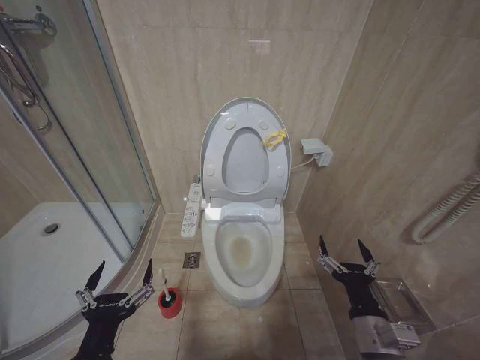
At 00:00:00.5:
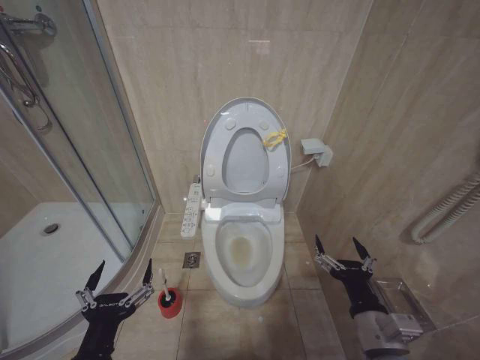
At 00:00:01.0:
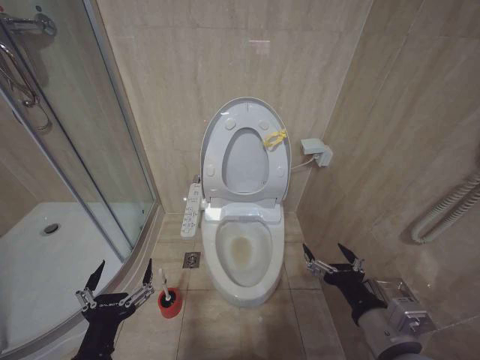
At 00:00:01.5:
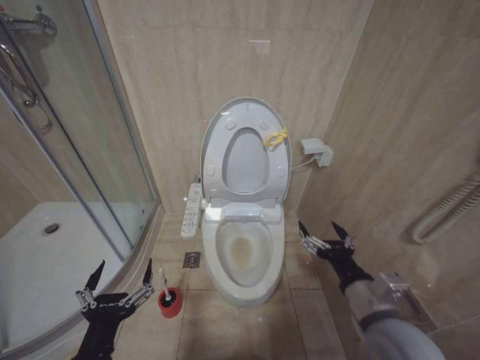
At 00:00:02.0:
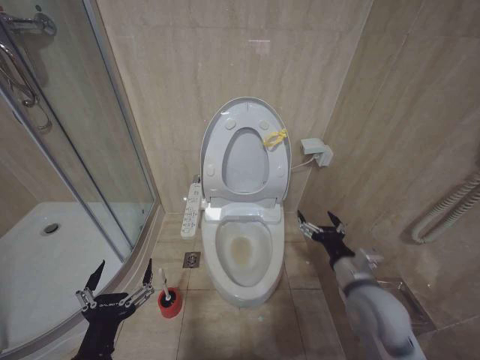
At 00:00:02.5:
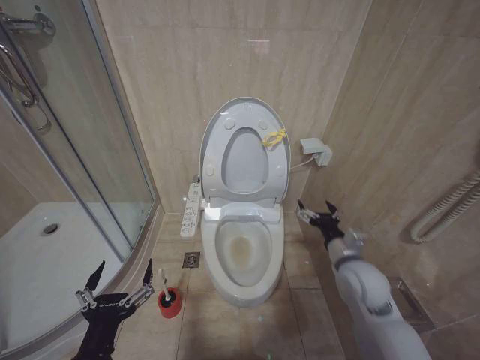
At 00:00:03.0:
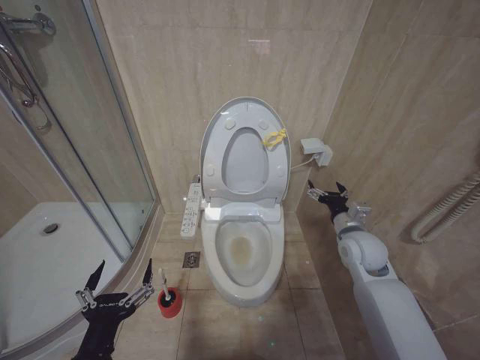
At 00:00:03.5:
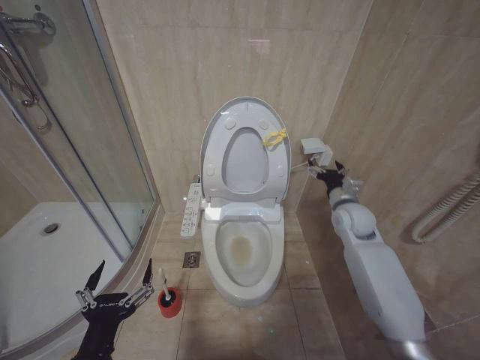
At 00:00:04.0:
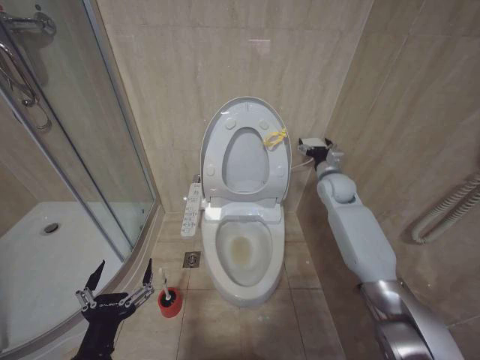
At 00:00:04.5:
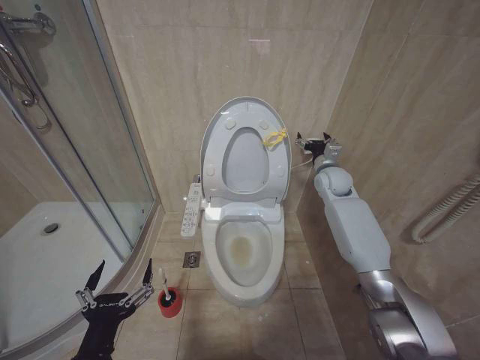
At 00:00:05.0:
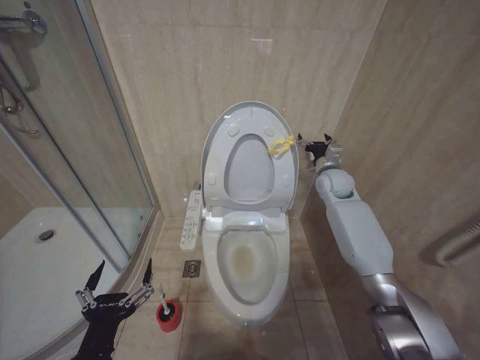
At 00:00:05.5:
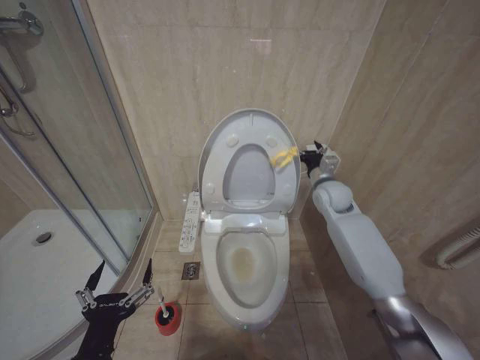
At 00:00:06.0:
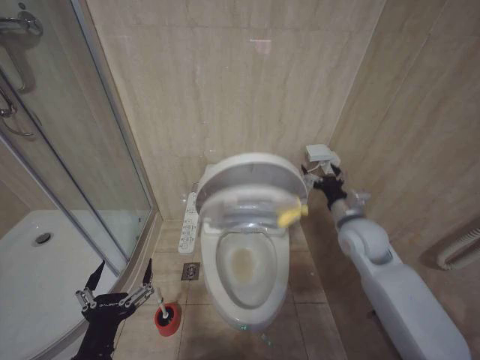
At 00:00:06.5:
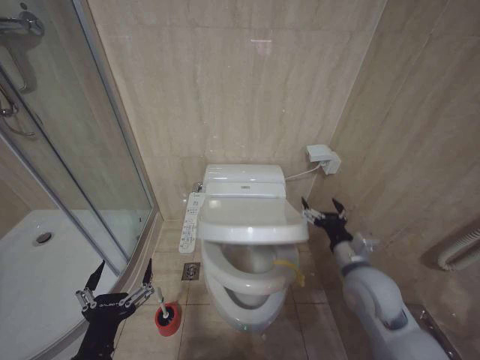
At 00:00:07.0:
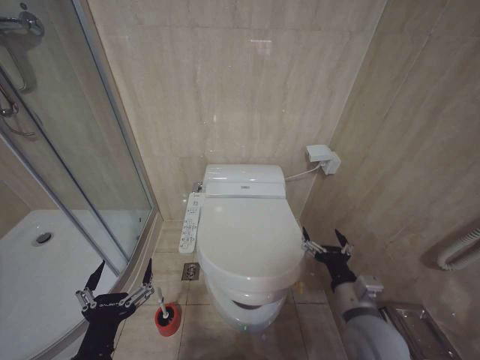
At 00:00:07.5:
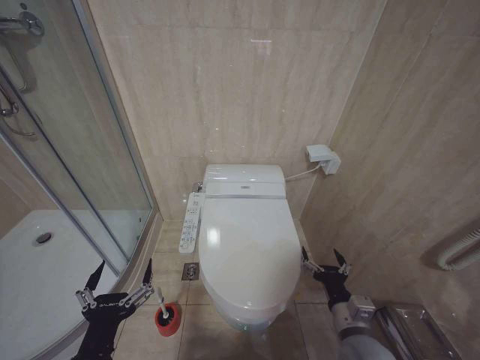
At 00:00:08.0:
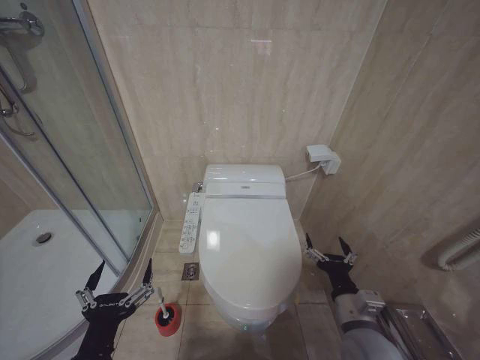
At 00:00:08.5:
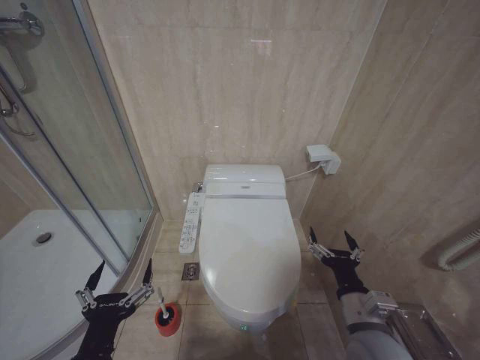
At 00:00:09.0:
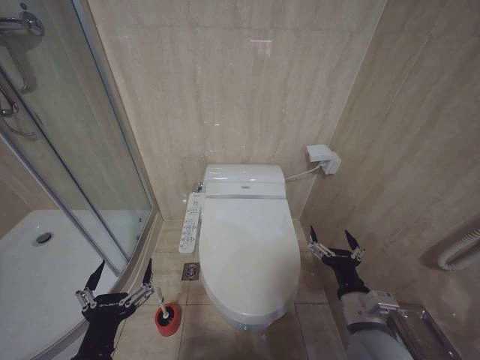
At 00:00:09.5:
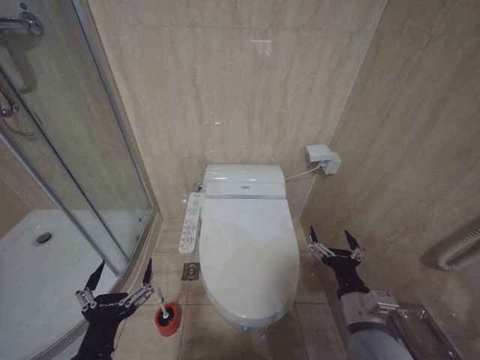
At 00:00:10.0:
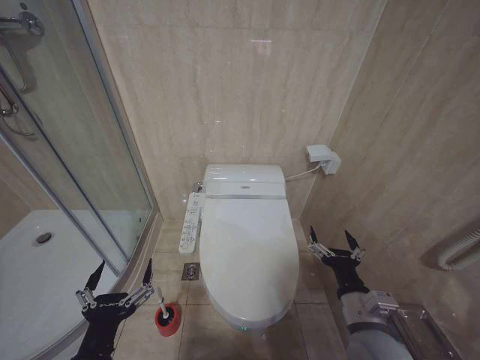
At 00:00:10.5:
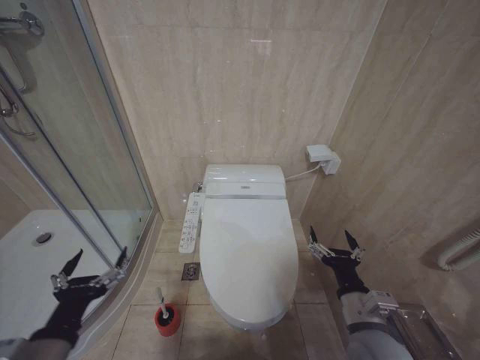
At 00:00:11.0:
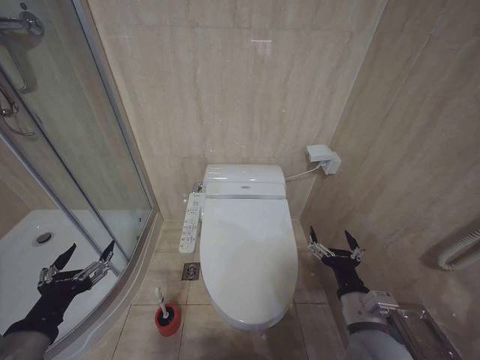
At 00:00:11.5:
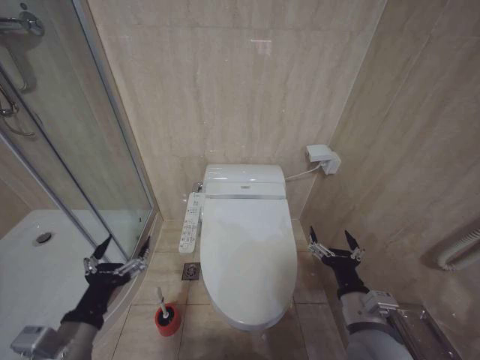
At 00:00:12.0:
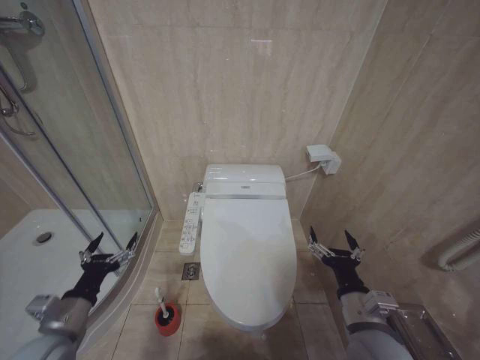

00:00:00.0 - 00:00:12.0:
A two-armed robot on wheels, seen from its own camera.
Task of the whole recording: Open the toilet lid, clean the toilet bowl with a toilet brush, close the toilet lid, and flush.
00:00:00.0 - 00:00:02.0: The right gripper goes about 10 cm forward and upward.
00:00:02.0 - 00:00:04.0: The right gripper goes approximately 30 cm forward.
00:00:04.0 - 00:00:06.0: The right gripper travels backward by some 15 cm.
00:00:06.0 - 00:00:08.0: The right gripper is displaced backward and downward by roughly 25 cm.
00:00:08.0 - 00:00:10.0: The grippers stay close to where they were, moving slightly.
00:00:10.0 - 00:00:12.0: The left gripper goes left and right, some 10 cm each way, reversing 2 times.

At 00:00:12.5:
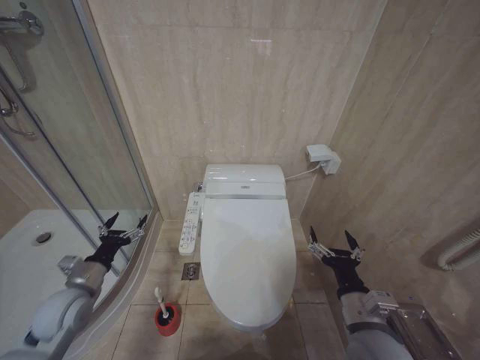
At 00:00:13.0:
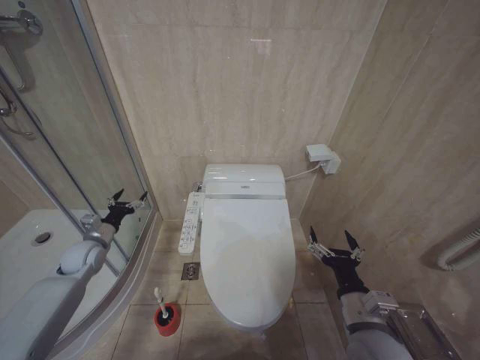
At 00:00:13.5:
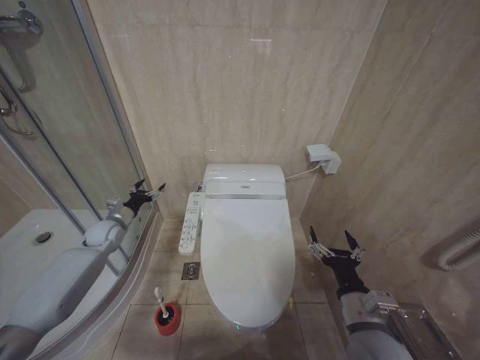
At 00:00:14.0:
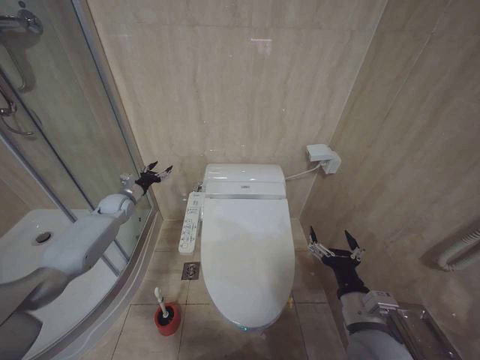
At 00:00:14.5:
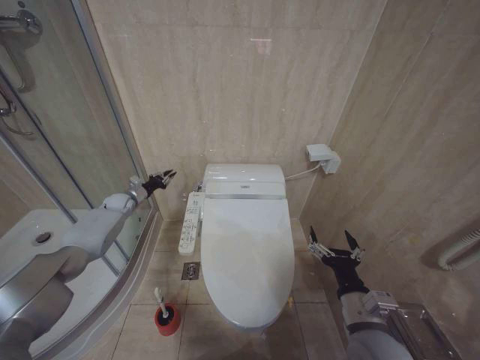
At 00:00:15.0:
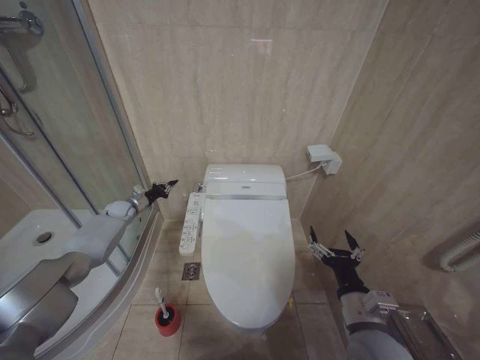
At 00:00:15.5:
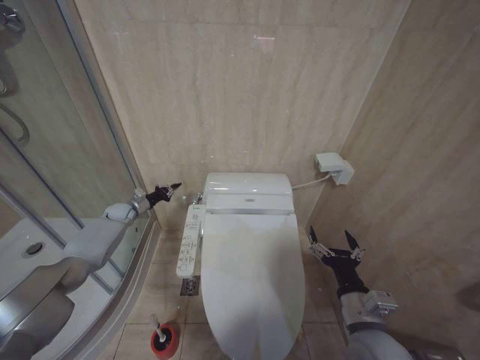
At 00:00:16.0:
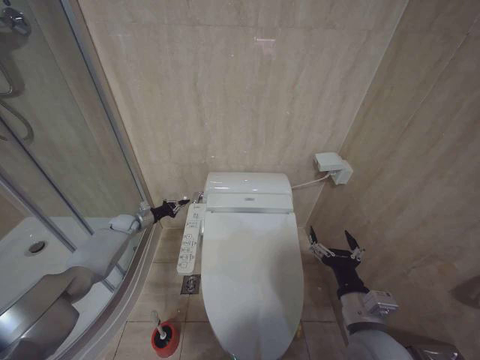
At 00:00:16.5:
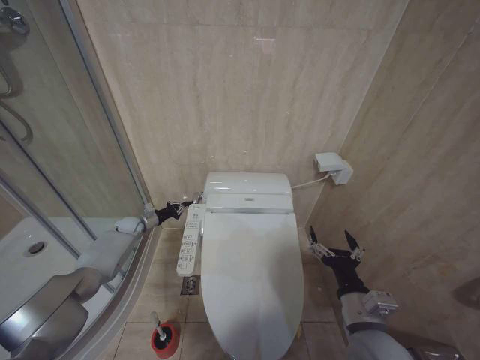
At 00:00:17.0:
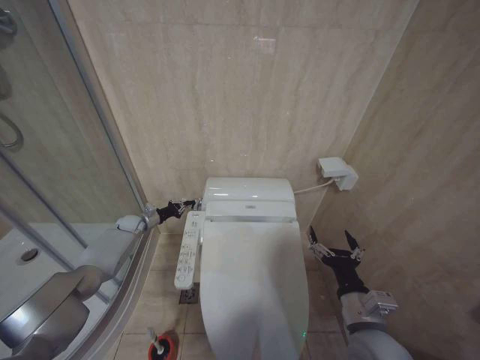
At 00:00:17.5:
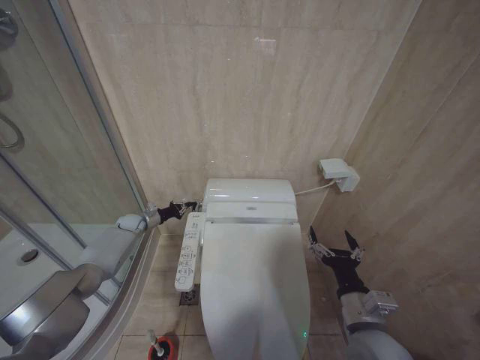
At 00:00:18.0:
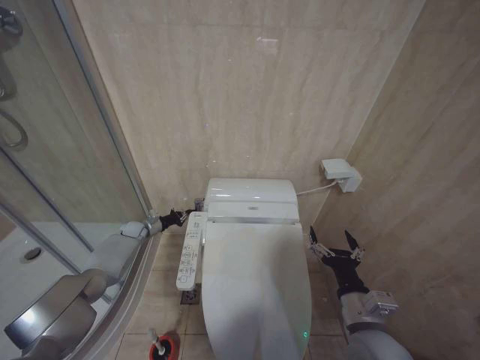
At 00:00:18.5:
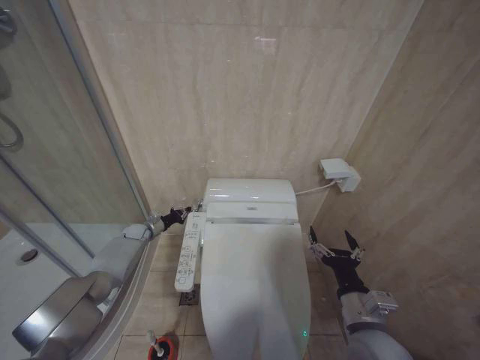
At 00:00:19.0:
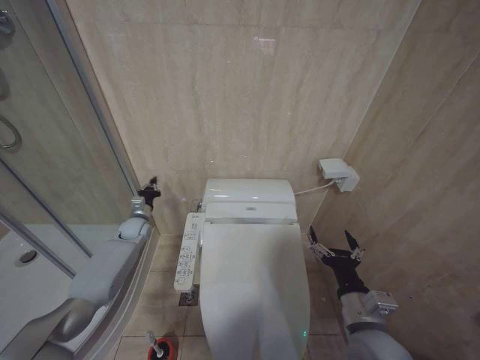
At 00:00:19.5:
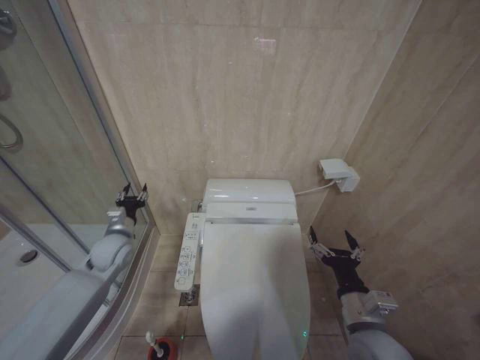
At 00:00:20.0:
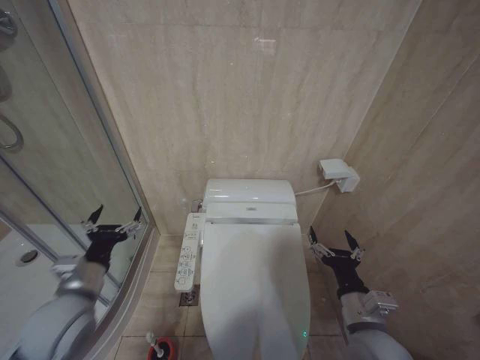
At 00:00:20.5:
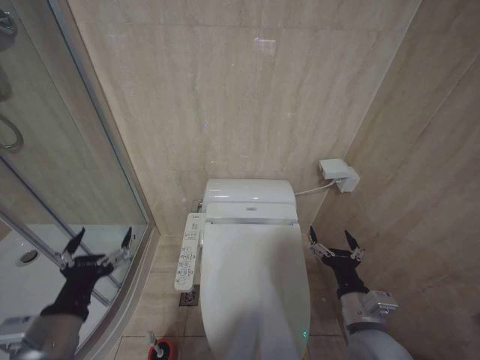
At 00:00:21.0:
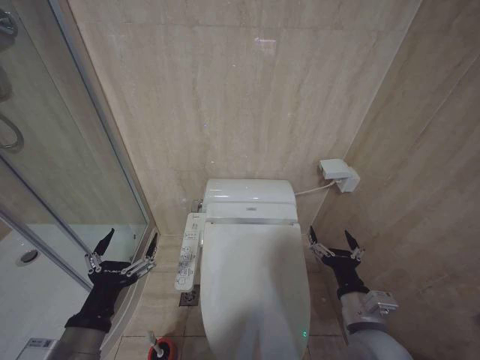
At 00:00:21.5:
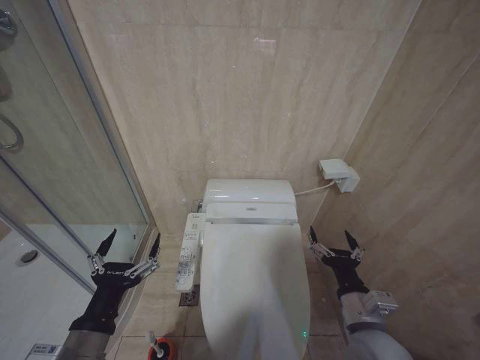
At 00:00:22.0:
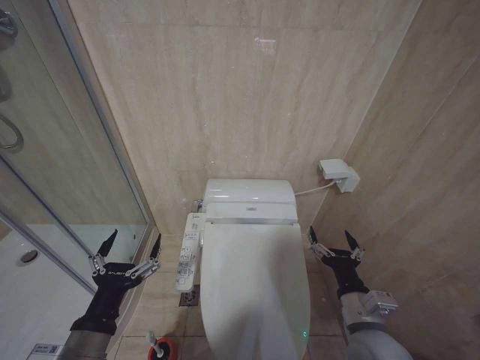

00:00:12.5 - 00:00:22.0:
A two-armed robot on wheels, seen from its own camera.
Task of the whole recording: Open the toilet lid, clean the toilet bowl with a toilet brush, close the toilet lid, and flush.
00:00:12.5 - 00:00:14.5: The left gripper moves forward, some 35 cm, and closes its fingers.
00:00:14.5 - 00:00:16.5: The left gripper travels downward by some 10 cm.
00:00:16.5 - 00:00:18.0: The grippers make only small movements.
00:00:18.0 - 00:00:20.0: The left gripper is displaced backward and upward by approximately 35 cm, and opens up.
00:00:20.0 - 00:00:22.0: The left gripper shifts roughly 15 cm backward.

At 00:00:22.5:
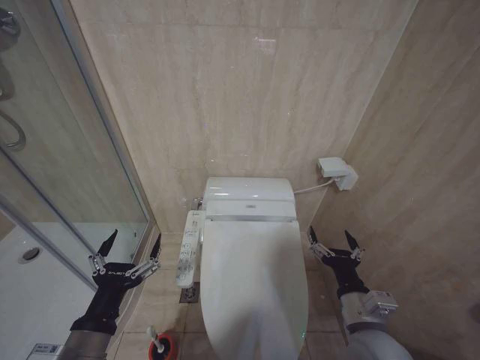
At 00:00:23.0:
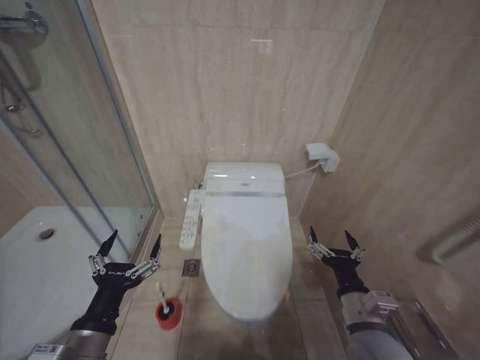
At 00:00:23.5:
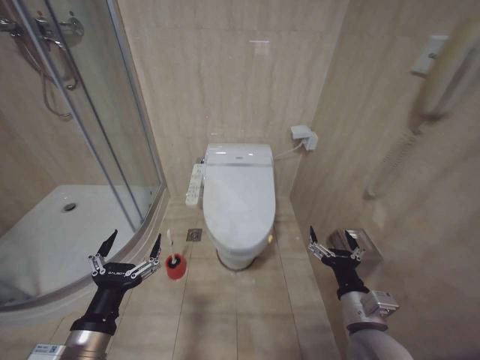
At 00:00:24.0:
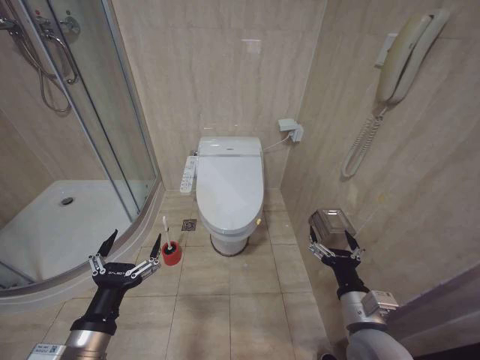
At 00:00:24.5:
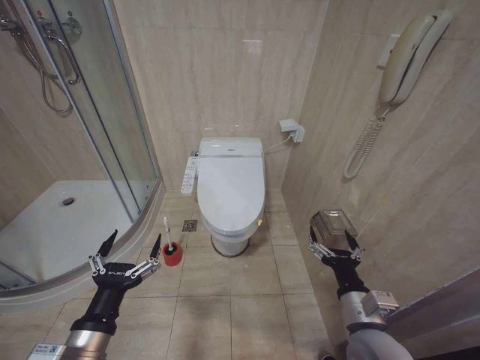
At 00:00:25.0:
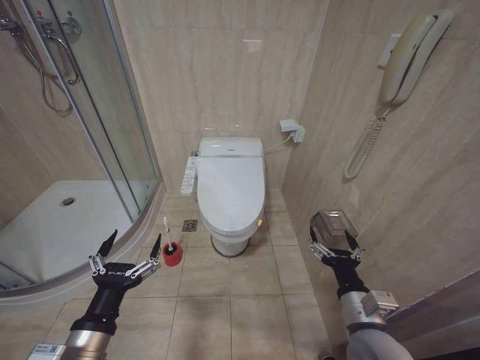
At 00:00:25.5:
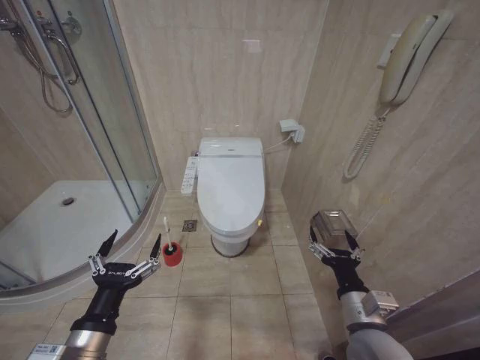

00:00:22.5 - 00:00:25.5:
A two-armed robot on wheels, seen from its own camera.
Task of the whole recording: Open the toilet lid, clean the toilet bowl with a toilet brush, close the toilet lid, and flush.
00:00:24.0 - 00:00:25.5: Neither gripper changes place.
